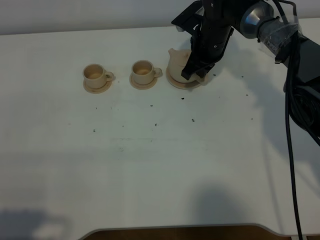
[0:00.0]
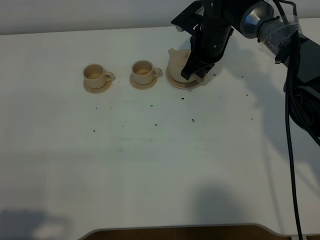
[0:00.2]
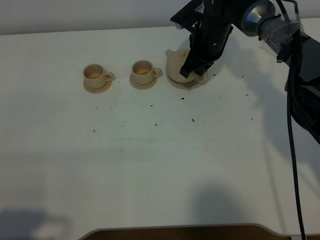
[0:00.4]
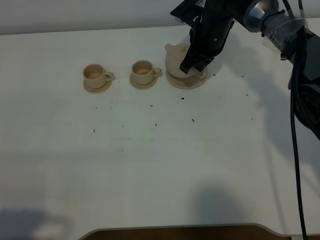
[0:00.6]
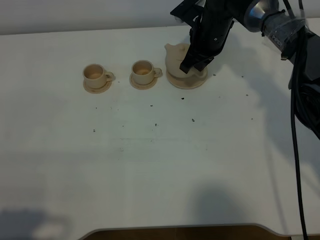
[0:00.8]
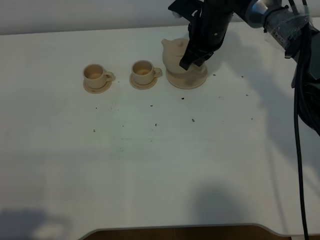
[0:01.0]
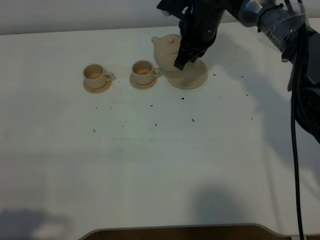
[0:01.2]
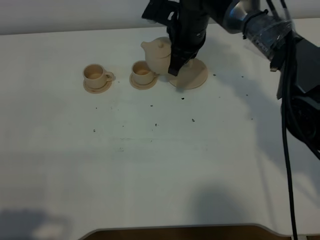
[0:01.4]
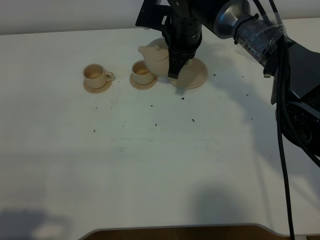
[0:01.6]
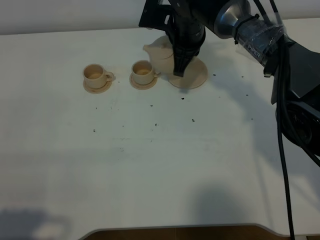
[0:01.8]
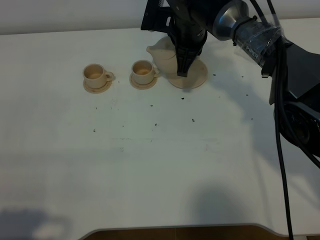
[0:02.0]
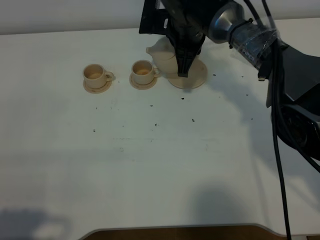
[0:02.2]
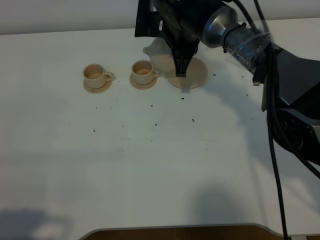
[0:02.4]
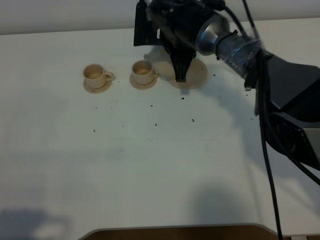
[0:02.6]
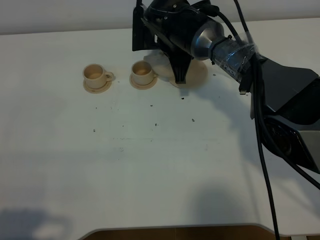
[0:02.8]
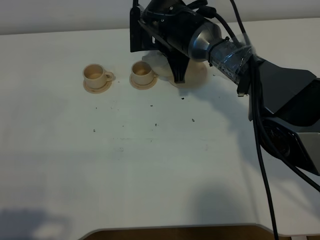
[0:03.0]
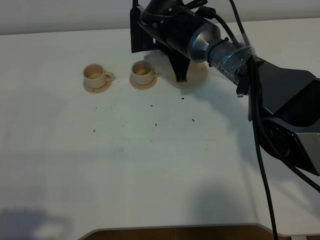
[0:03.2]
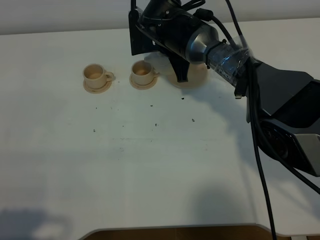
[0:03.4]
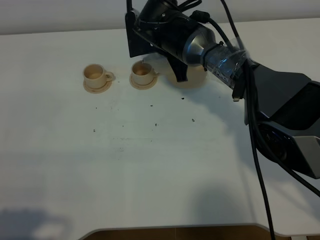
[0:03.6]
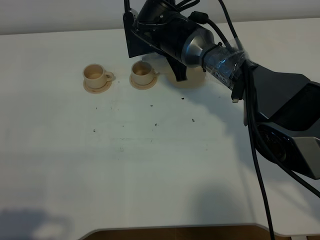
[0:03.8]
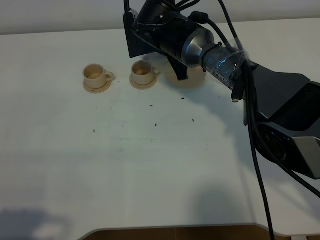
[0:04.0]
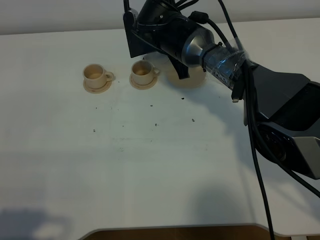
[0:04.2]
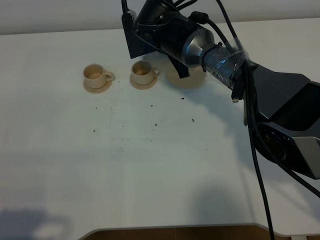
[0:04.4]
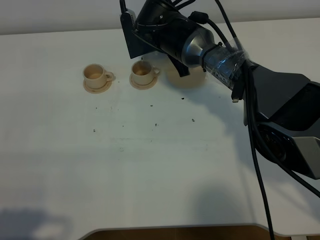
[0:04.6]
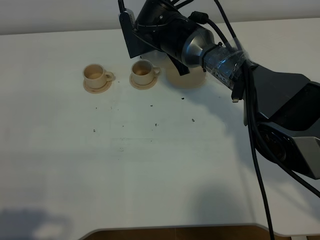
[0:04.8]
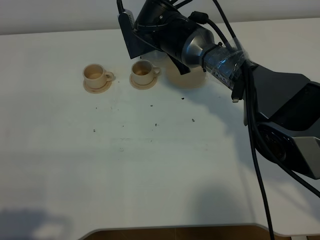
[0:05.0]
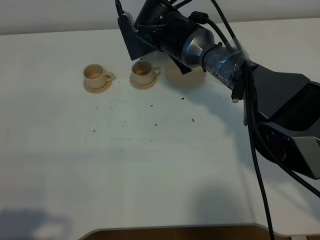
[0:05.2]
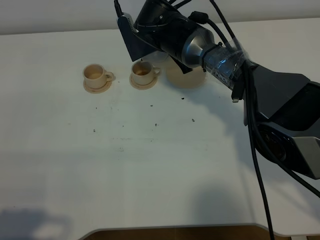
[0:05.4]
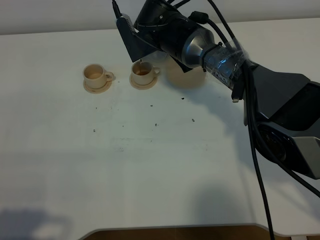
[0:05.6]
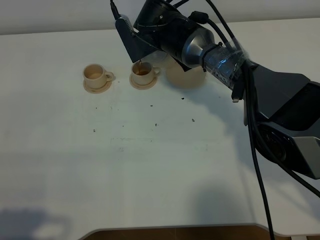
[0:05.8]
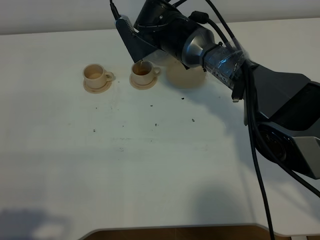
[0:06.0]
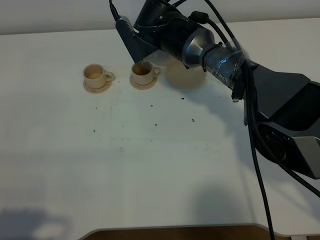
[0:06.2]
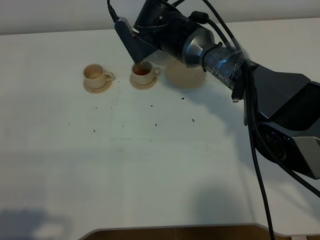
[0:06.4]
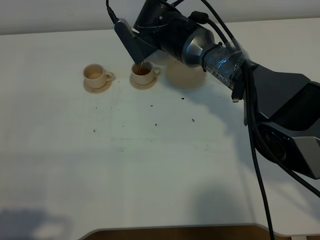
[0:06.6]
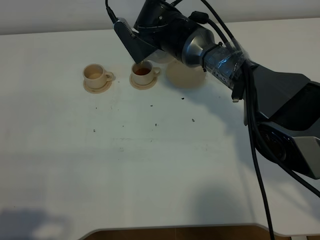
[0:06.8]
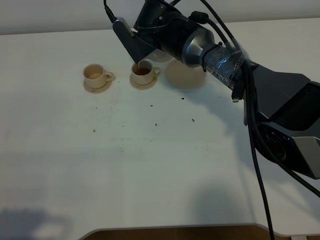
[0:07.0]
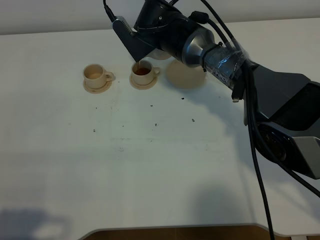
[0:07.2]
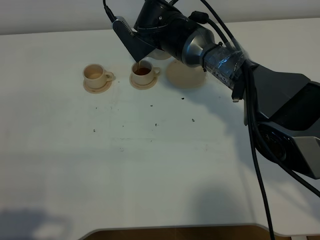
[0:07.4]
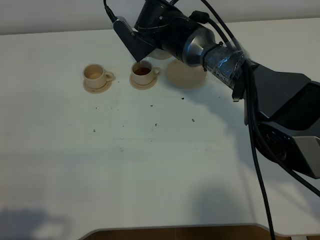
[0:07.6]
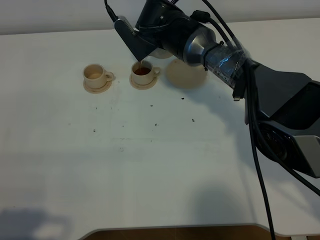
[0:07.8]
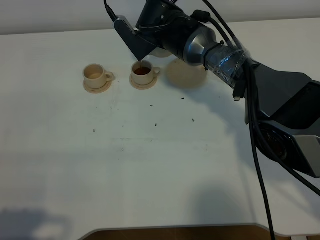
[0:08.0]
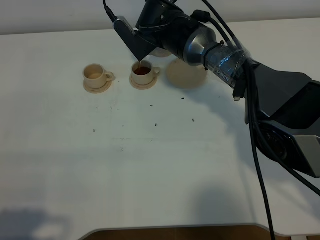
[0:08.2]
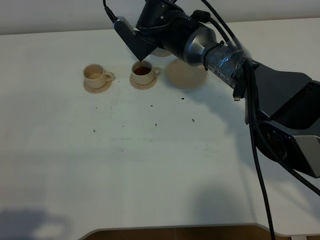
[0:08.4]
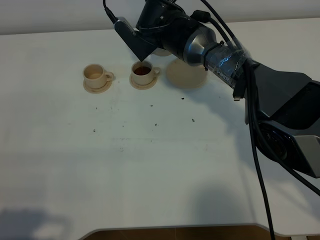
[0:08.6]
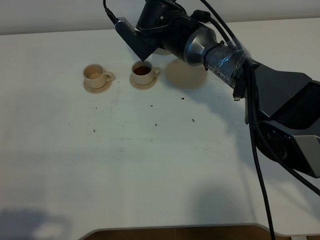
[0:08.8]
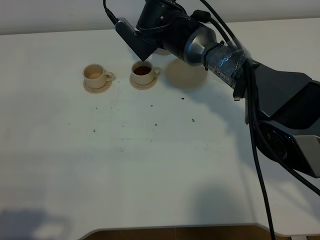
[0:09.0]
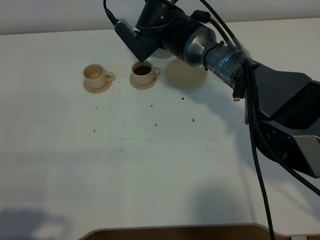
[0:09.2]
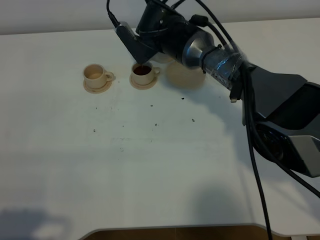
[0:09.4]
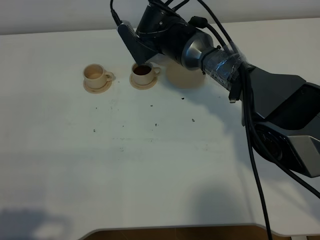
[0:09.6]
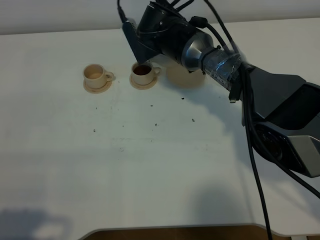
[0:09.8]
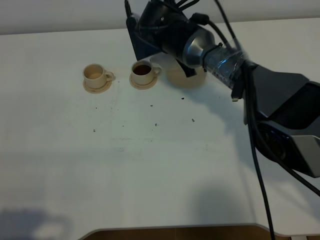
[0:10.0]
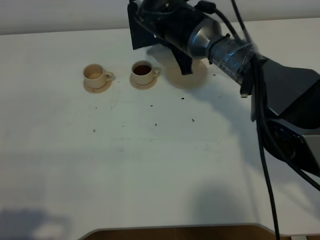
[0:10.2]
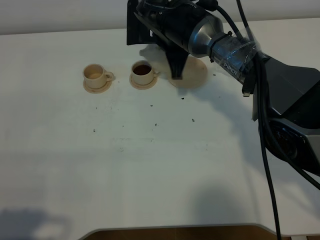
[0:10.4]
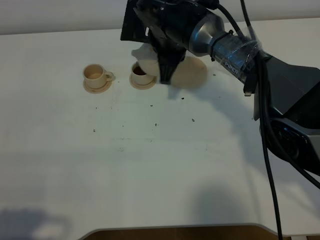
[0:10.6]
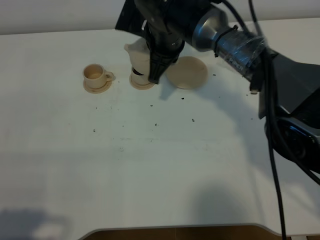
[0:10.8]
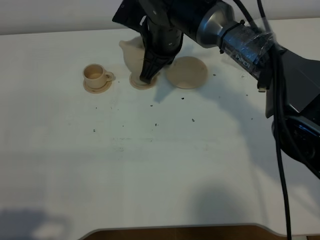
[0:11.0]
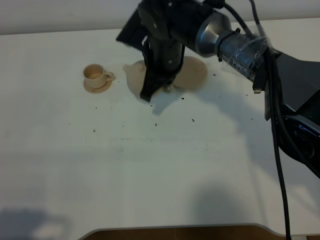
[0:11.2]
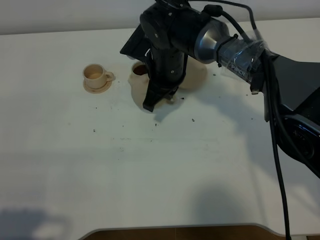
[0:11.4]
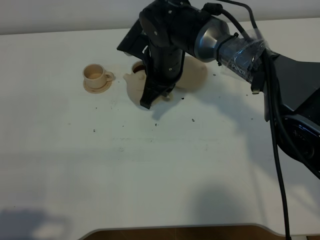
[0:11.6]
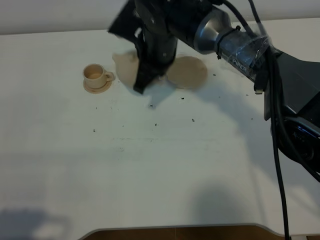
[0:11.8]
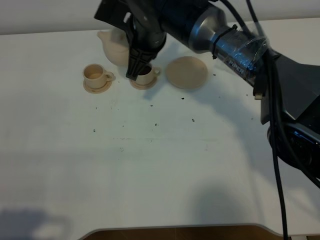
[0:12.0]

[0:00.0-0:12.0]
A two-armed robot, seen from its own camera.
Task of the whole recording: grasp the brown teapot and pour the tea into the two brown teacups one by one, put the brown teapot back in its original place.
0:00.0 to 0:01.6: The right gripper heads upward and to the left, covering some 10 cm.
0:03.0 to 0:04.4: The grippers stay close to where they were, moving slightly.
0:04.4 to 0:06.0: The grippers stay close to where they were, moving slightly.
0:06.0 to 0:09.0: The grippers move only a little.
0:10.4 to 0:12.0: The right gripper shifts by roughly 5 cm.

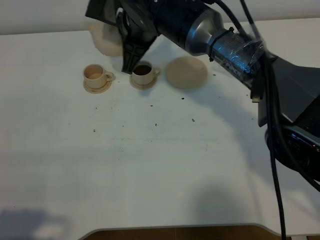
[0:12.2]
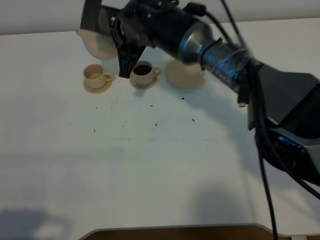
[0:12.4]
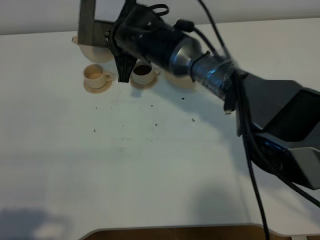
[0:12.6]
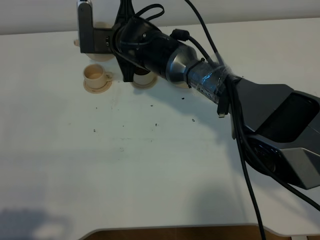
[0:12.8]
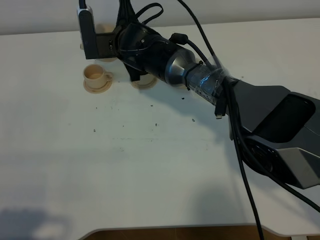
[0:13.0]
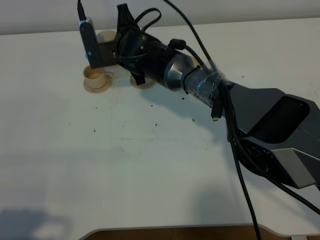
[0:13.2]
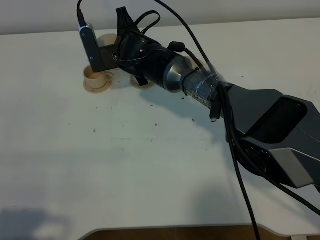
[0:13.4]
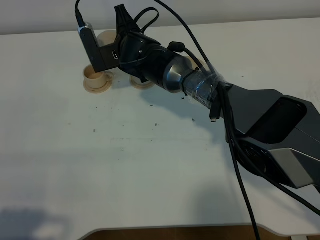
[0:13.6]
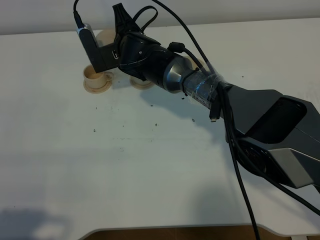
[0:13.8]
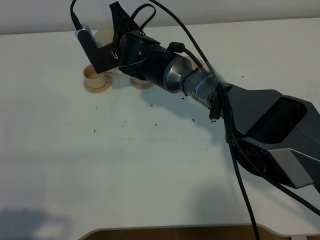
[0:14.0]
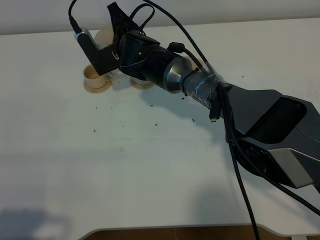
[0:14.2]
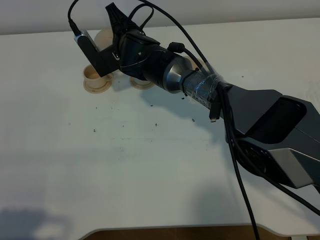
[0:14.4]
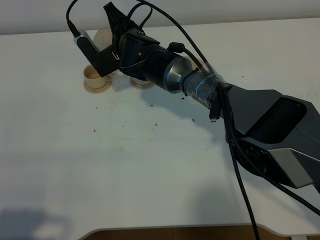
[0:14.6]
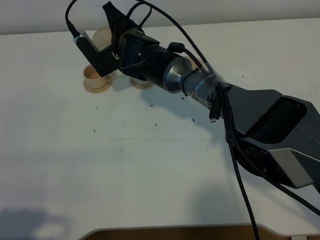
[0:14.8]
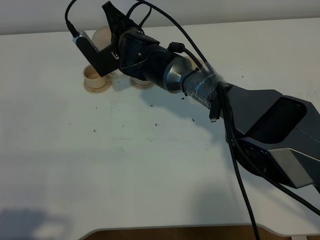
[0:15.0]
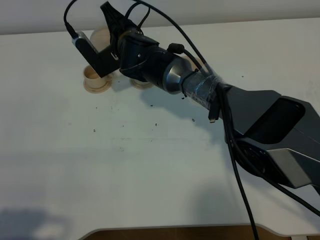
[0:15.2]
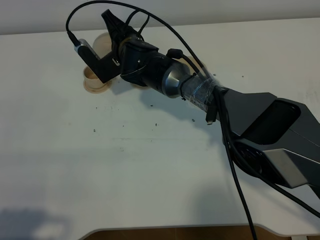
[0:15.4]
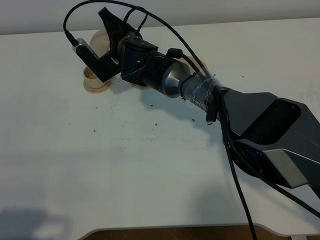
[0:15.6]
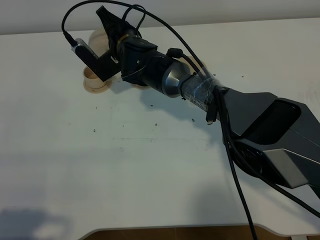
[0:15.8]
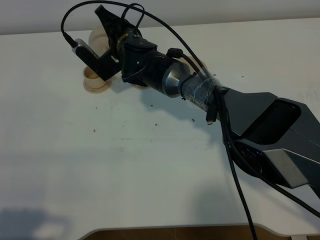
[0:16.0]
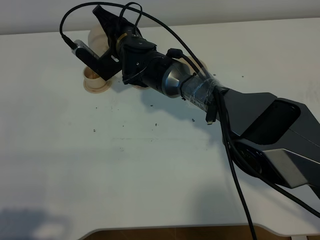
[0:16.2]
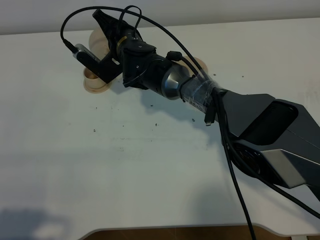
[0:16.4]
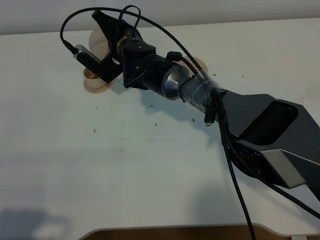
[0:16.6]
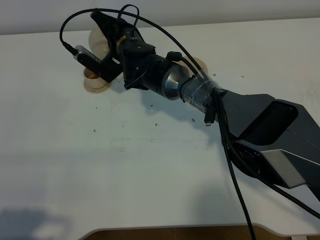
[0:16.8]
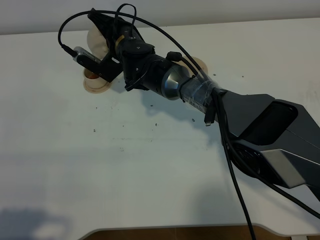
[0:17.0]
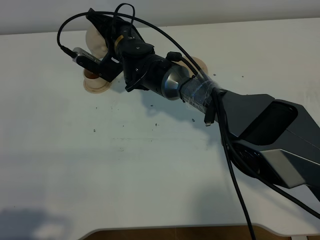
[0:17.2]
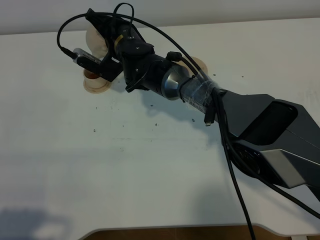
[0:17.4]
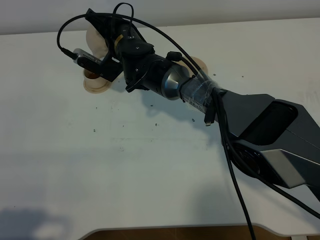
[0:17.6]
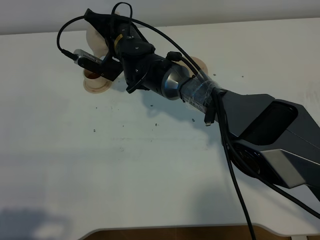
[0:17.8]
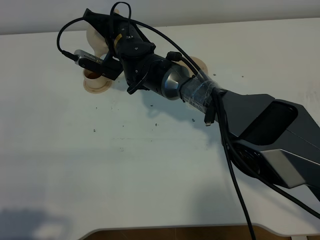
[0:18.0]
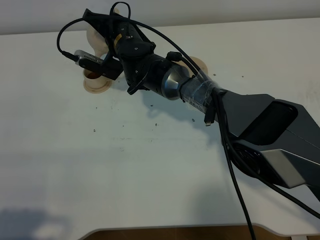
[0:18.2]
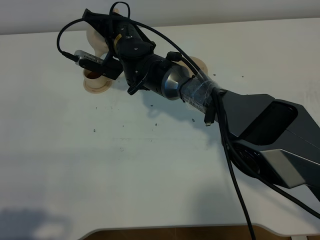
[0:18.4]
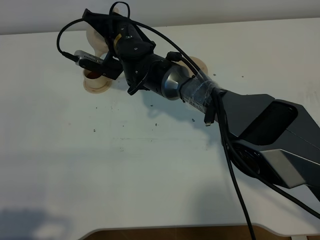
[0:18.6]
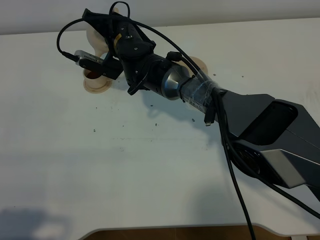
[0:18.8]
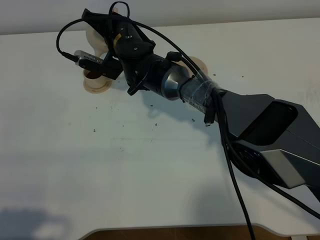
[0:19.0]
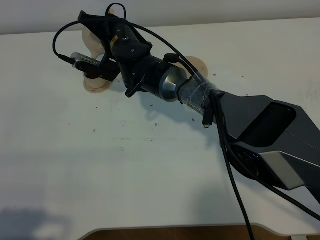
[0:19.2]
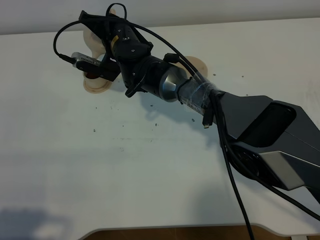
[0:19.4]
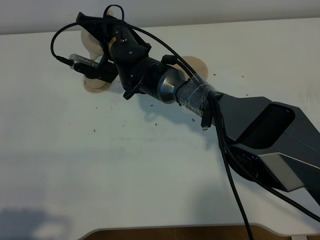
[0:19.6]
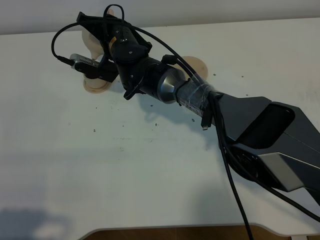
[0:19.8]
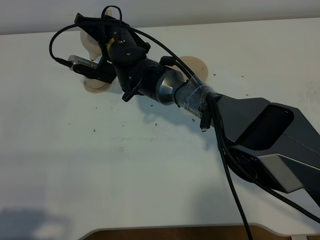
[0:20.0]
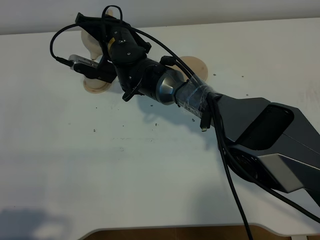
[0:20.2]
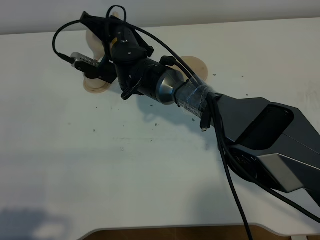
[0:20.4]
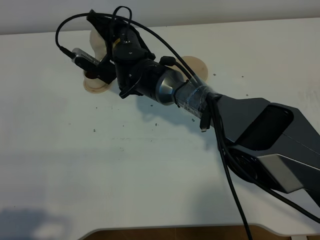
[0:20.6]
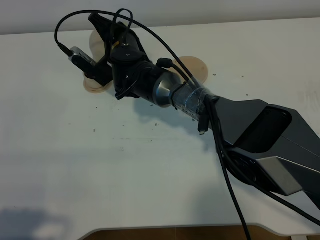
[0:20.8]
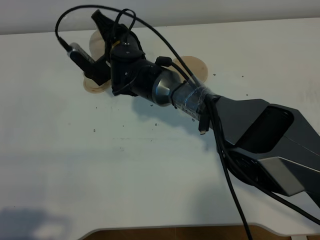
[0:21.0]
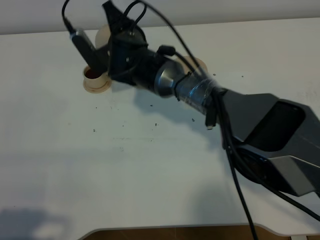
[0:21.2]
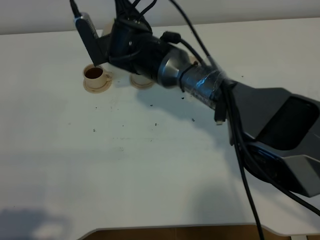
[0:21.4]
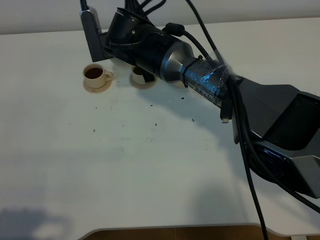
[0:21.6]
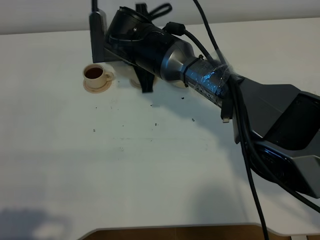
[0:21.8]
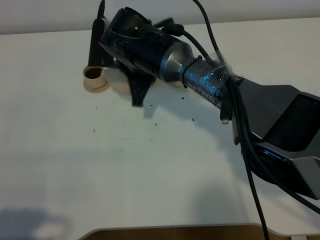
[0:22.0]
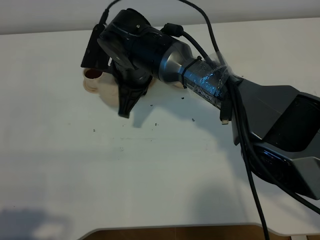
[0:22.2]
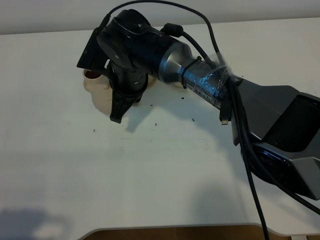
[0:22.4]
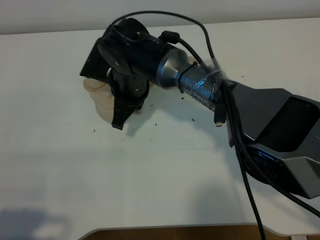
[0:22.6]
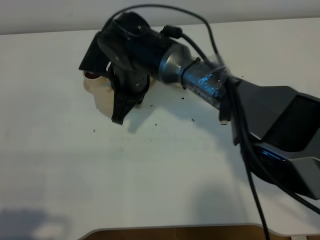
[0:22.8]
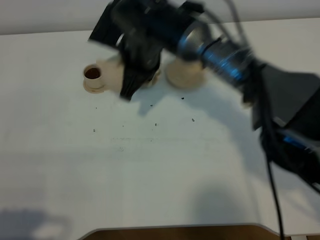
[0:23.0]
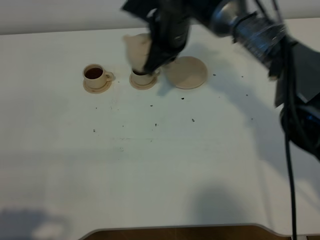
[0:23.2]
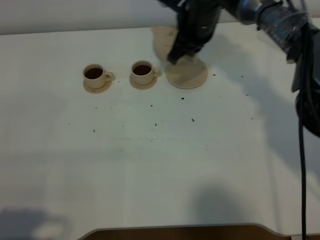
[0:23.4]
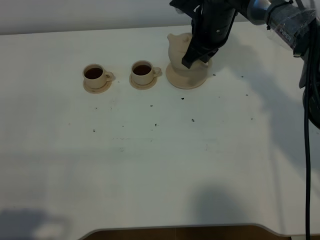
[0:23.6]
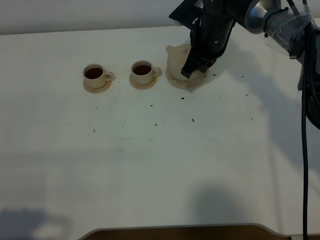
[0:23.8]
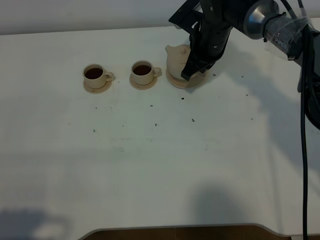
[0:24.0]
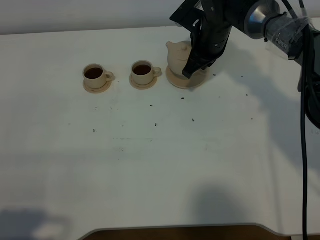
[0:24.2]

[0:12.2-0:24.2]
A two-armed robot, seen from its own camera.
Task of the whole recording: grasp the brown teapot and pour the tea into the two brown teacups one by one, put the brown teapot back in its original place.
Step, 0:12.2 to 0:21.2: Pour tea into the teacup with the right gripper.
0:12.2 to 0:13.8: The right gripper shifts about 10 cm downward.
0:13.8 to 0:15.2: There are only small adjustments of the grippers.
0:15.2 to 0:16.6: The grippers move only a little.
0:16.6 to 0:18.2: There are only small adjustments of the grippers.
0:18.2 to 0:19.8: Both grippers stay put.
0:21.2 to 0:22.6: The right gripper travels backward by about 5 cm.
0:22.6 to 0:24.2: The right gripper heads to the right and forward, covering roughly 20 cm.
